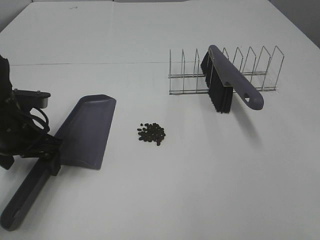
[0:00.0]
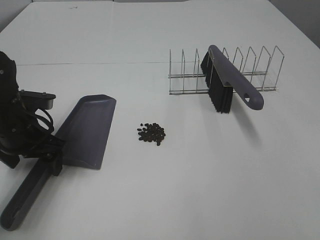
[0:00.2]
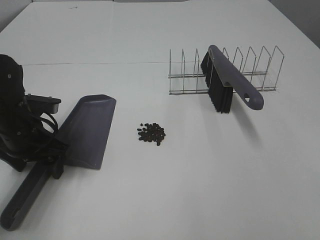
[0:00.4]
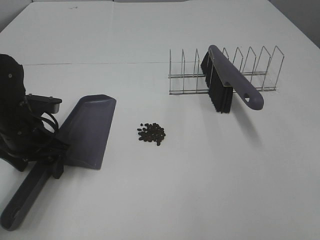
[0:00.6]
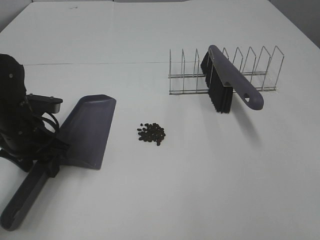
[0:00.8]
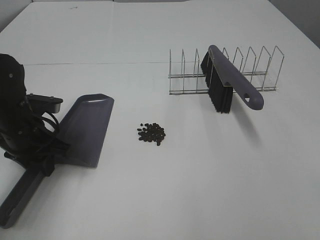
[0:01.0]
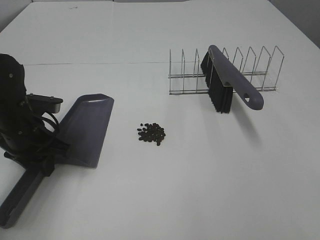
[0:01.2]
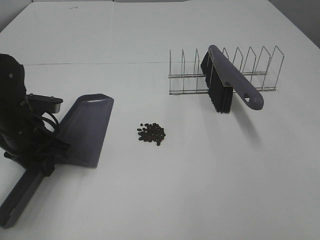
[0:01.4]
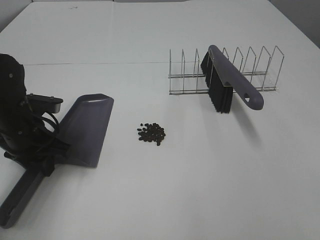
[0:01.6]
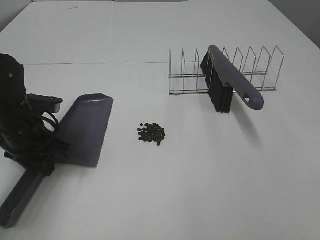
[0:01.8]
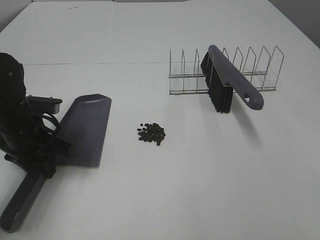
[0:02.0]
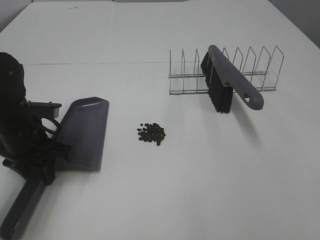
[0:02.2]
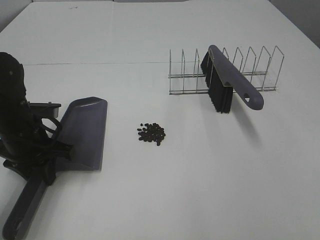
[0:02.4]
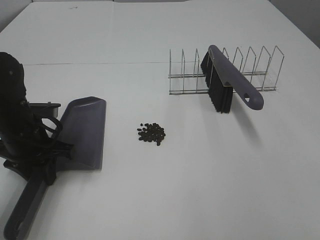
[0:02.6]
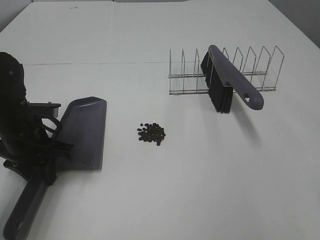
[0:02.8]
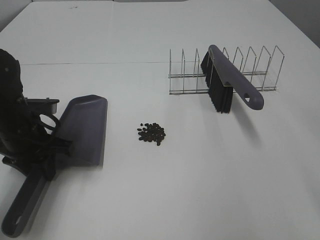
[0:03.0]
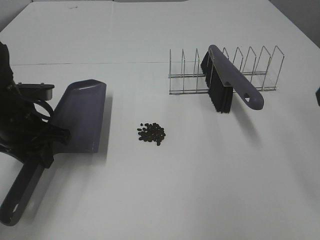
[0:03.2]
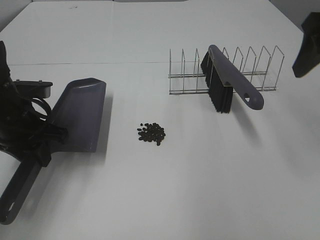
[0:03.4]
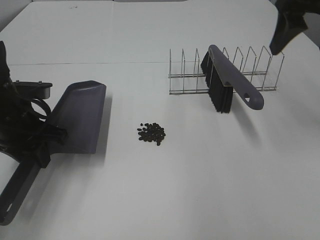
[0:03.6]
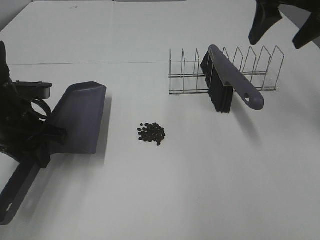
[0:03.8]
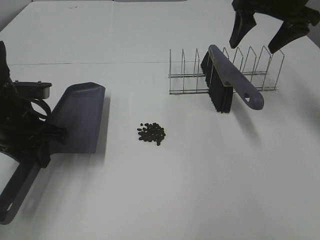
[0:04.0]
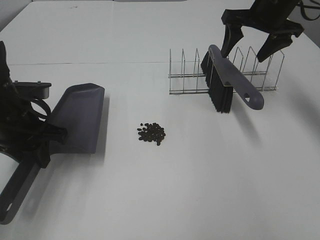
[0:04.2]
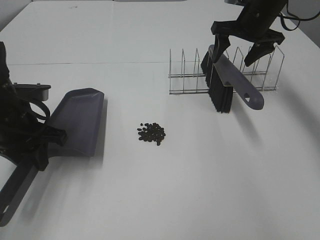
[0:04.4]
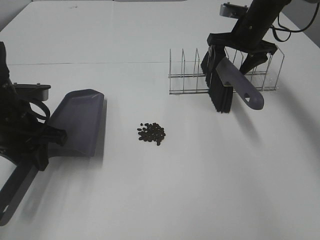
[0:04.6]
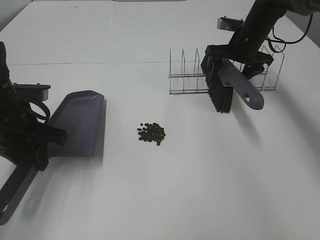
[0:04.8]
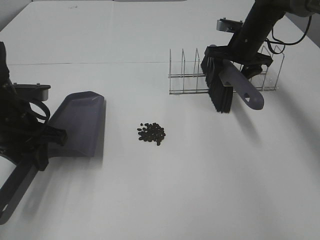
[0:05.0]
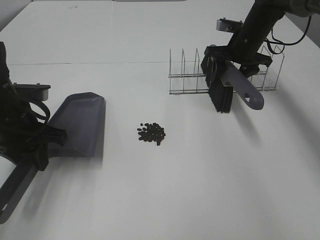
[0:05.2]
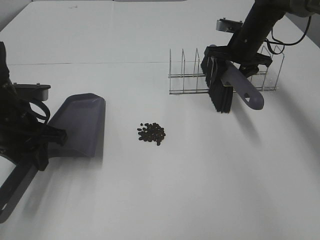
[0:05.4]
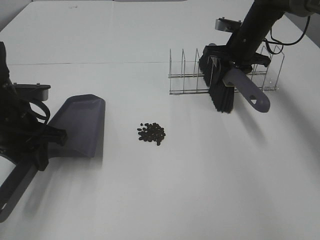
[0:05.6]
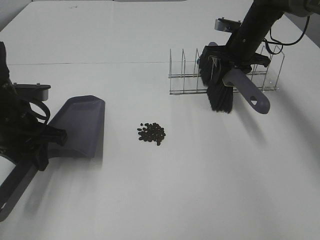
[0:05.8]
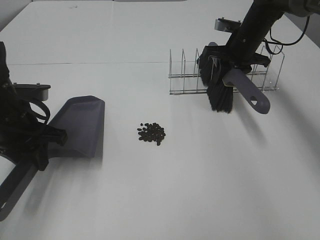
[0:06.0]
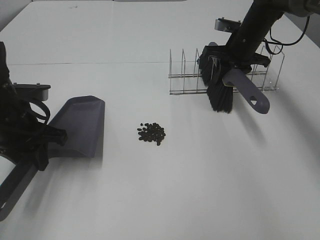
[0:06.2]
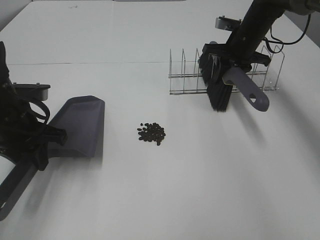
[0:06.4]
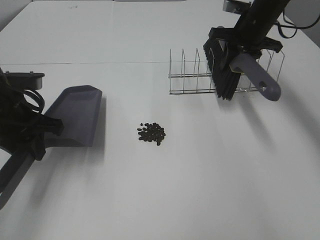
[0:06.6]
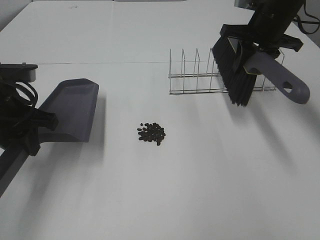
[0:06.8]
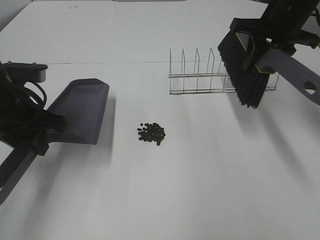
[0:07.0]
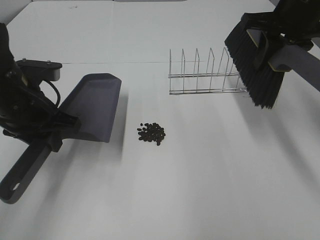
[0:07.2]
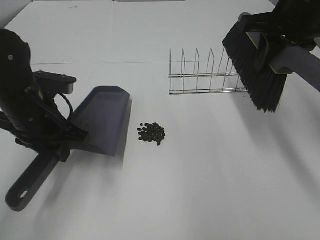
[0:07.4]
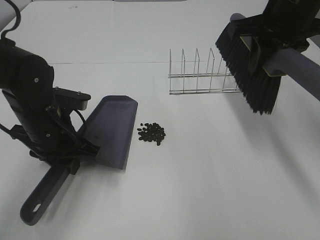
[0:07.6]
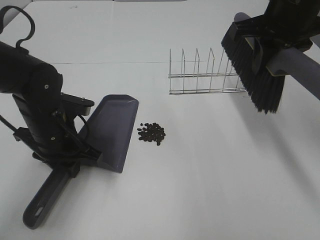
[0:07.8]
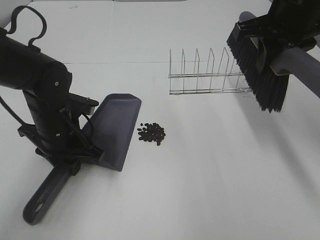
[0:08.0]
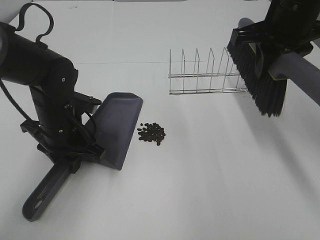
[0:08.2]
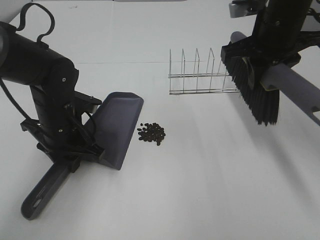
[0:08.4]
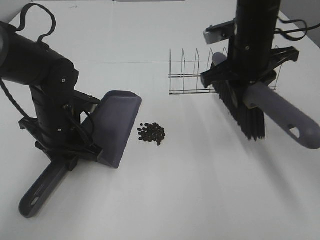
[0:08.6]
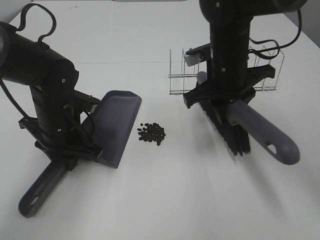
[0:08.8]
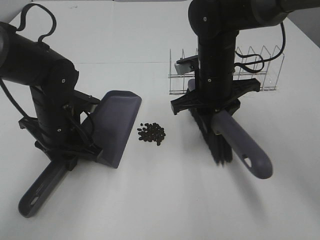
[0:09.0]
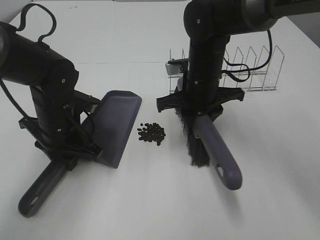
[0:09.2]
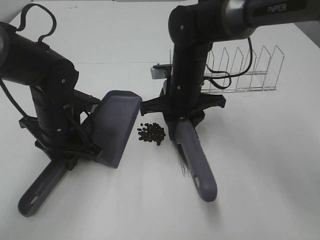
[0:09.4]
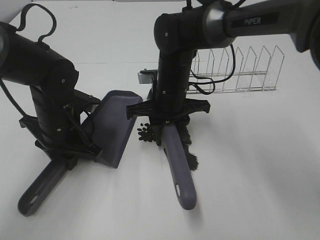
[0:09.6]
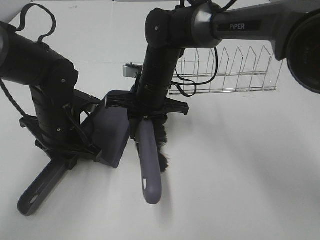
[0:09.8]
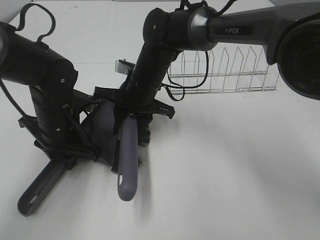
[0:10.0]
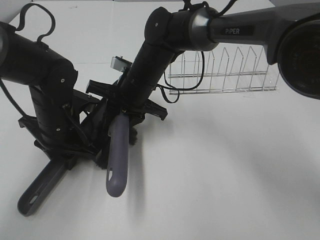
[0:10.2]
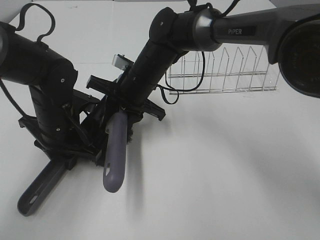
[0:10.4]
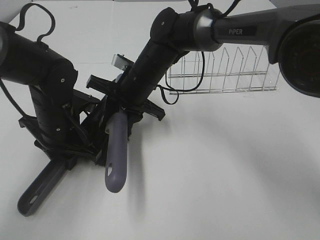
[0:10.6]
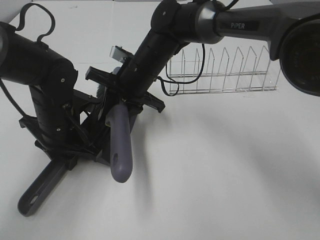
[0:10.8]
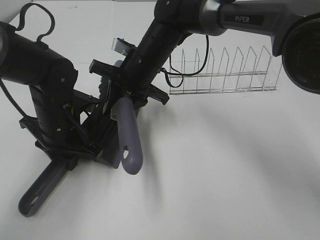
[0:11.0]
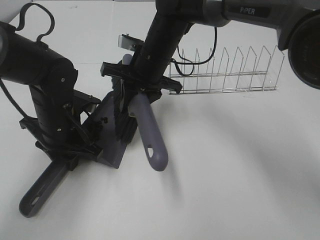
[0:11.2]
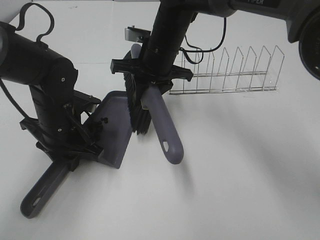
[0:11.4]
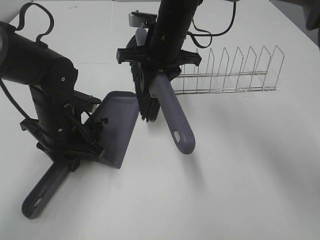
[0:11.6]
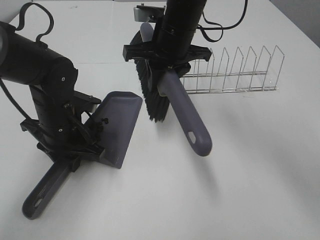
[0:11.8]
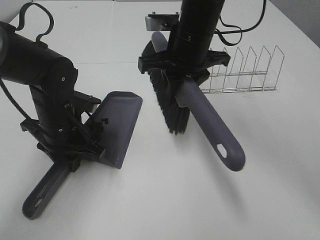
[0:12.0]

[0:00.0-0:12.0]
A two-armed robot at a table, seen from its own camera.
Task of the whole recording: Sweep Coffee Bean.
Step, 1.2 to 8.4 s: Left hand: move the dustpan to the left side of the coffee beans.
Step, 2.2 to 5.4 s: Right hand:grab the broom.
Step, 5.6 to 11.4 s: Right hand:sweep the coffee beans into the dustpan.
0.0 to 1.6 s: The left gripper closes up.
3.0 to 4.4 s: The right gripper goes roughly 35 cm forward.
4.4 to 6.0 s: The right gripper goes about 5 cm downward, and closes up.
6.0 to 7.6 s: The right gripper heads backward and upward, covering approximately 20 cm; the left gripper shifts roughly 5 cm to the right.
7.6 to 9.0 s: The right gripper moves downward and to the left, roughly 15 cm.
9.0 to 10.4 s: The right gripper is displaced to the left by approximately 10 cm.
10.4 to 12.0 s: The right gripper moves upward and to the right, approximately 15 cm.

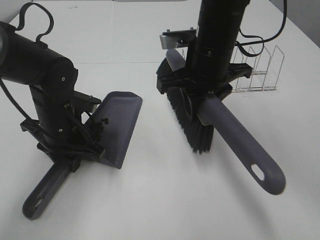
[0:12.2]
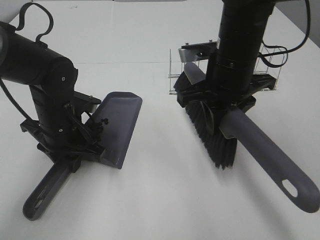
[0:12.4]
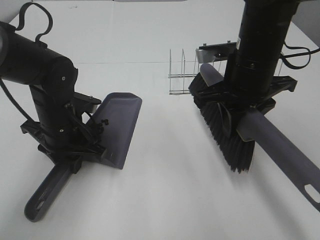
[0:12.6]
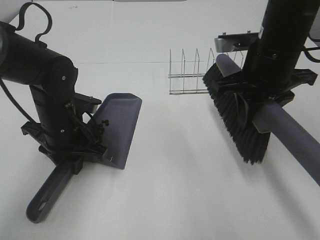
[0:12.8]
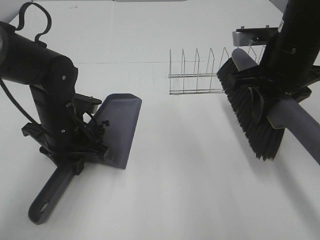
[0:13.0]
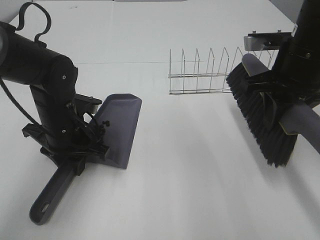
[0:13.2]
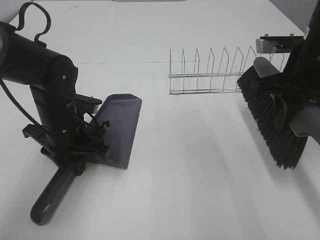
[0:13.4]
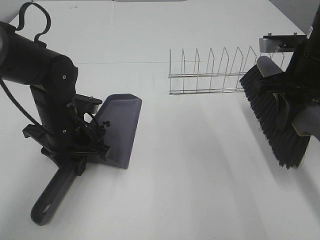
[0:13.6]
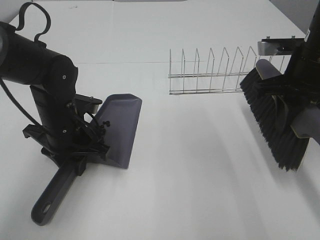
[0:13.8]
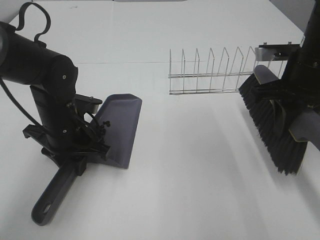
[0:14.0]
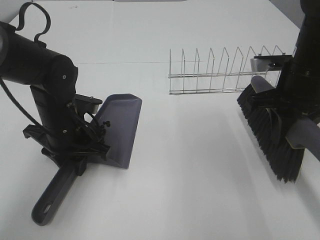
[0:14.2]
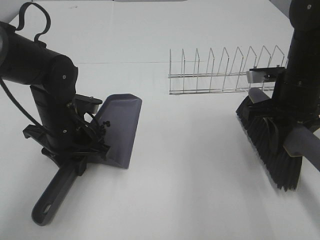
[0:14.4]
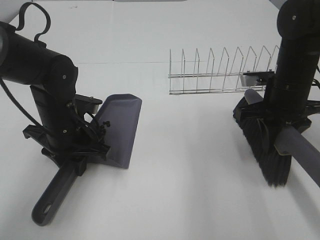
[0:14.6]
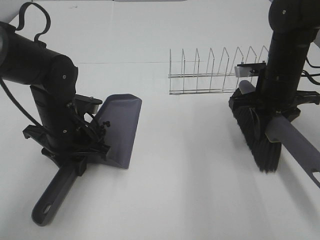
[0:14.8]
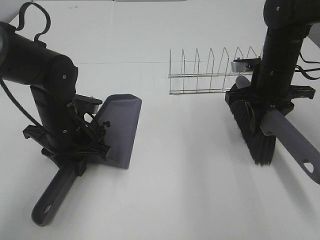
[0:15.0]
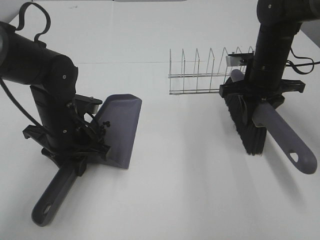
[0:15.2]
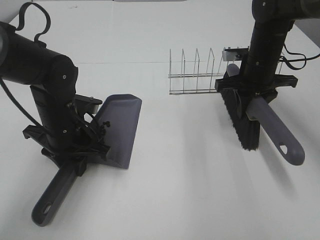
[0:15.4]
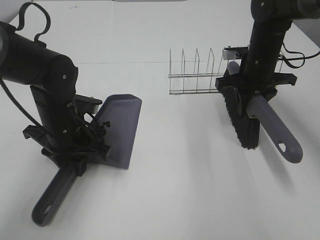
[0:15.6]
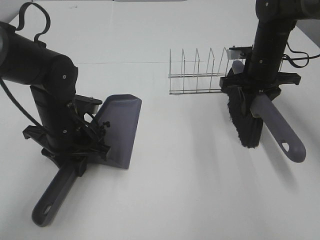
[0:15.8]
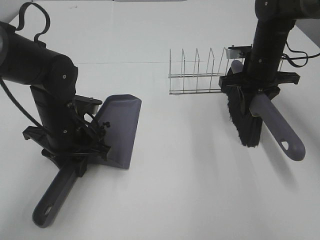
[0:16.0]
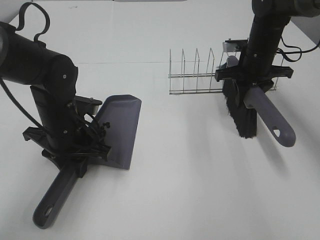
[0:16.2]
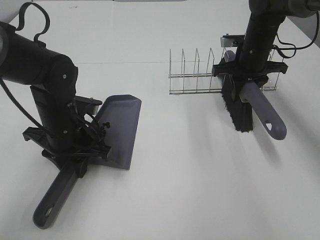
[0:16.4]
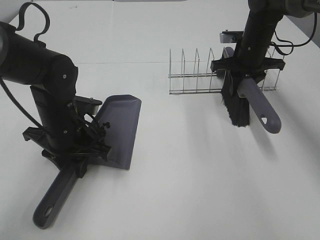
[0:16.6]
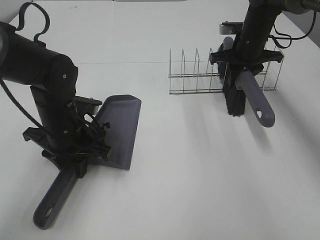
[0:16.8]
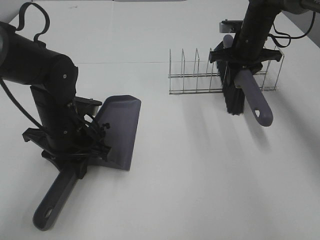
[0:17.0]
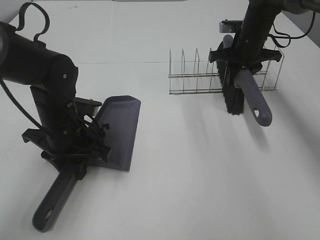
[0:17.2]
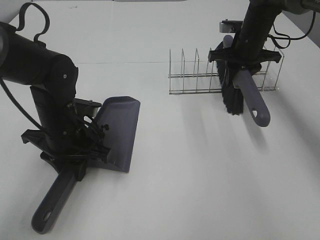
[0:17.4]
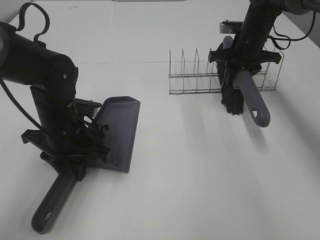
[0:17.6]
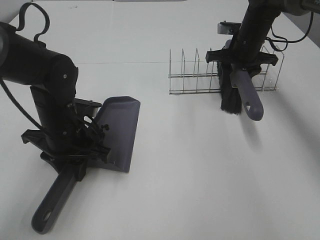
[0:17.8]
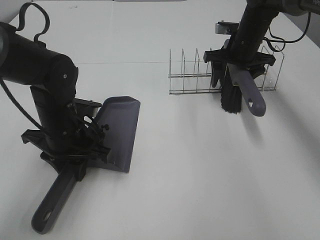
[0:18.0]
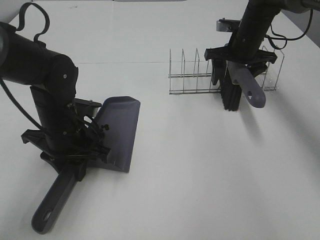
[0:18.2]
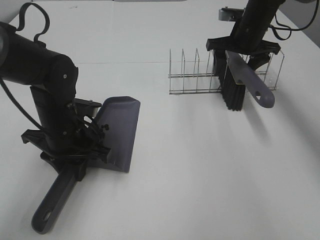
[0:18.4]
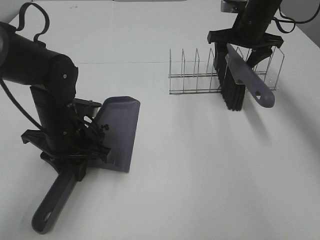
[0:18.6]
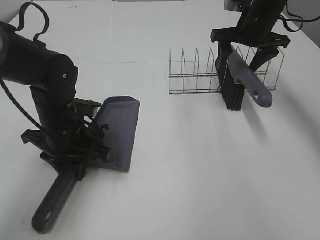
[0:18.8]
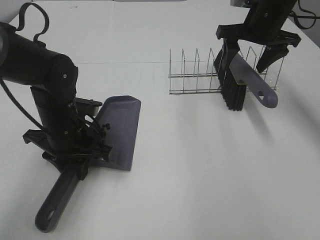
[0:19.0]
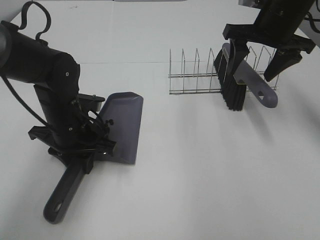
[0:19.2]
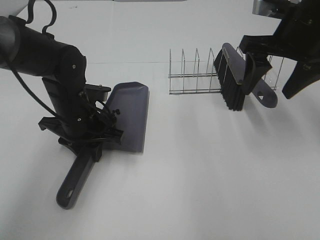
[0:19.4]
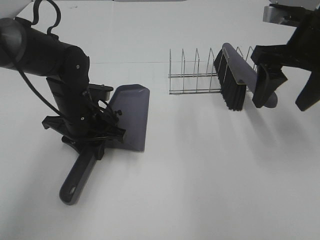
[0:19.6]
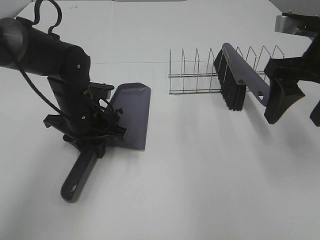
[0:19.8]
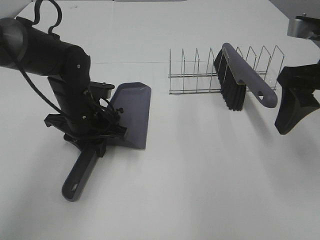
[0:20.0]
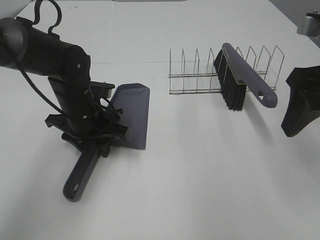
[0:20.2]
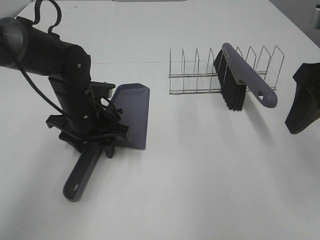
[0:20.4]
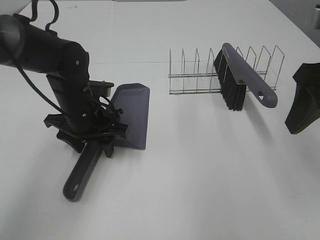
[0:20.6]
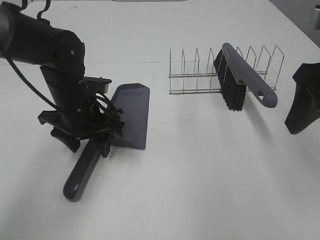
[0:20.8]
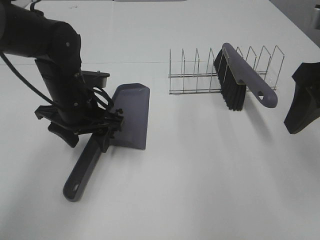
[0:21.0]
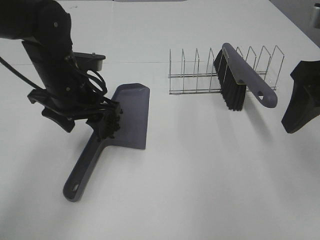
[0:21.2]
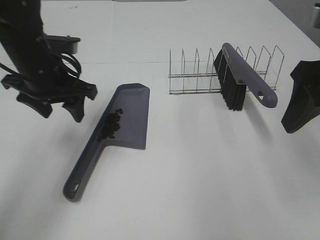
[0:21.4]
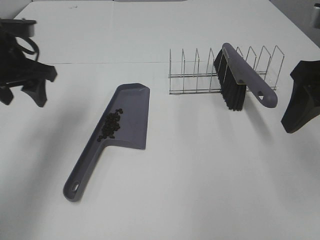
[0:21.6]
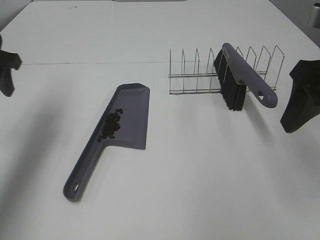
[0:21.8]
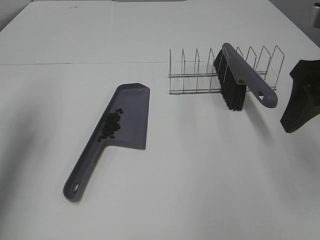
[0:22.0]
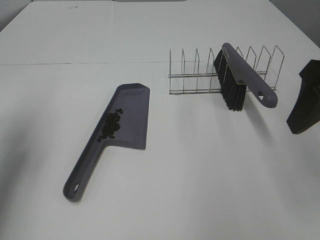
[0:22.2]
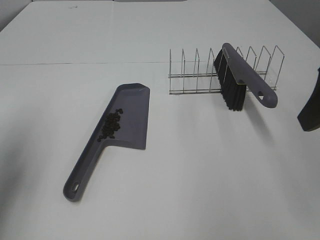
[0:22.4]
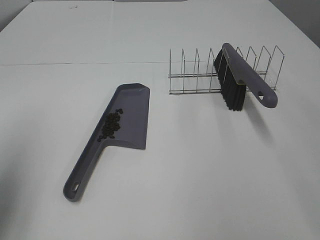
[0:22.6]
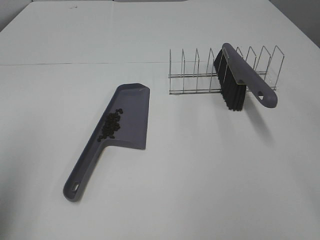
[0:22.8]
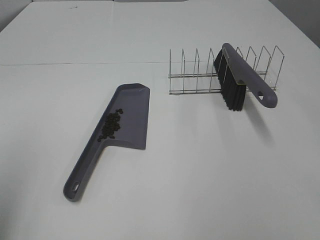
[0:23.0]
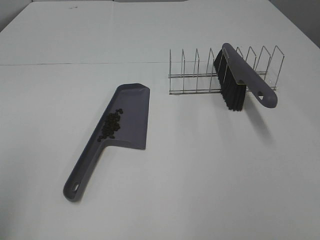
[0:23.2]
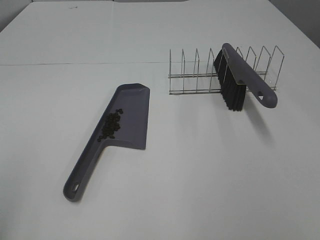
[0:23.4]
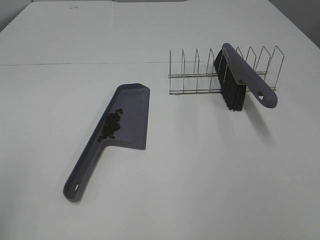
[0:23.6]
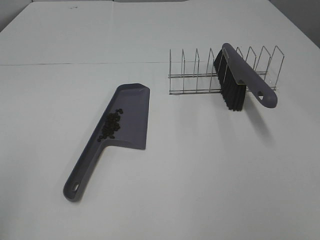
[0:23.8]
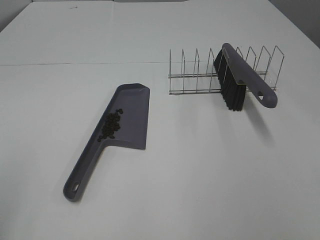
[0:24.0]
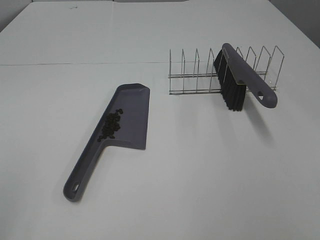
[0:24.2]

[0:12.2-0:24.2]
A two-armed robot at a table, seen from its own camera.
Task of the whole recording: Sweep Coffee Bean.
Step, 12.2 to 18.6 s: Right hand:place the broom on the rack.
12.2 to 13.8 s: The right gripper travels to the right by roughly 15 cm.
13.8 to 15.2 s: The right gripper moves forward and downward, approximately 10 cm.
15.2 to 16.6 s: The right gripper shifts some 10 cm forward.
16.6 to 18.2 s: The right gripper opens its fingers.
18.2 to 19.8 s: The right gripper travels backward and upward by about 25 cm.
19.8 to 21.2 s: The right gripper ends up approximately 5 cm from where it was; the left gripper travels upward by some 10 cm, and opens up.
21.2 to 22.6 s: The right gripper heads backward and upward, covering approximately 10 cm. The left gripper heads to the left, backward and upward, covering approximately 25 cm.
22.6 to 24.2 s: The left gripper moves backward, some 15 cm.
